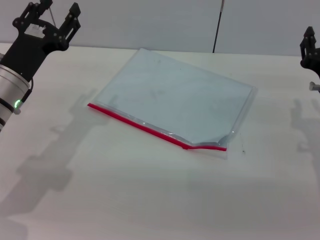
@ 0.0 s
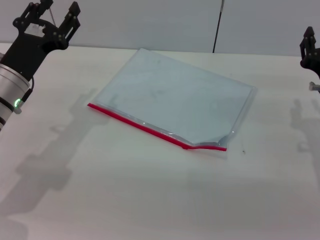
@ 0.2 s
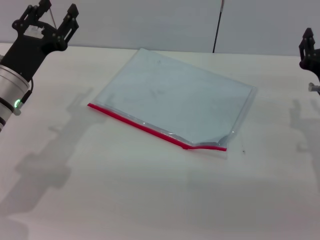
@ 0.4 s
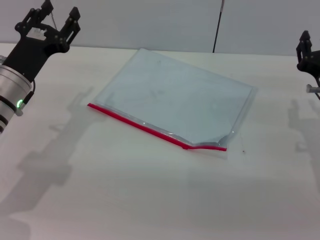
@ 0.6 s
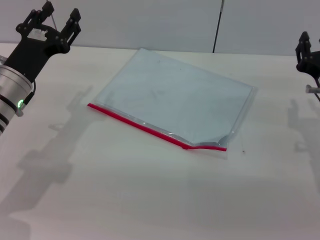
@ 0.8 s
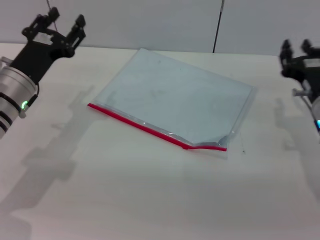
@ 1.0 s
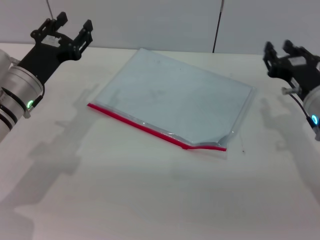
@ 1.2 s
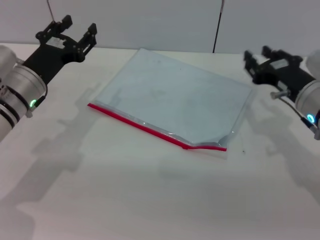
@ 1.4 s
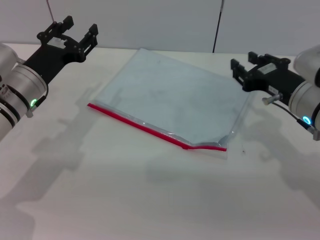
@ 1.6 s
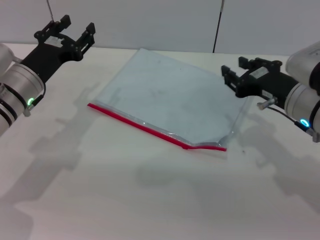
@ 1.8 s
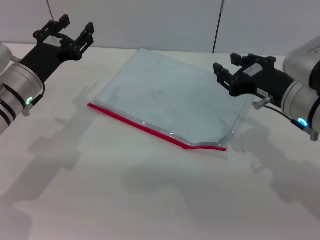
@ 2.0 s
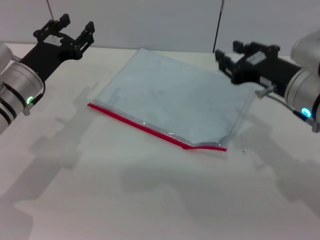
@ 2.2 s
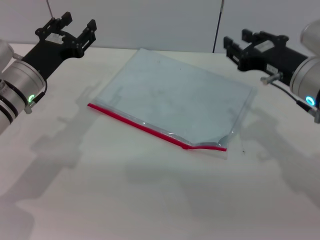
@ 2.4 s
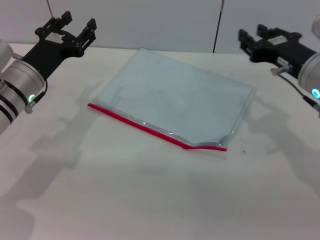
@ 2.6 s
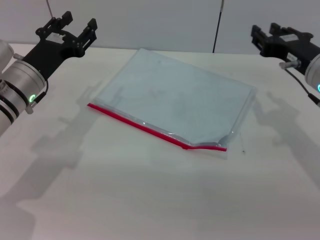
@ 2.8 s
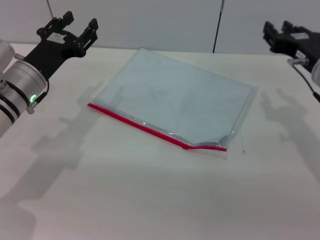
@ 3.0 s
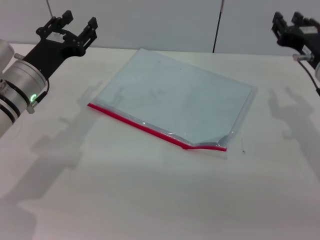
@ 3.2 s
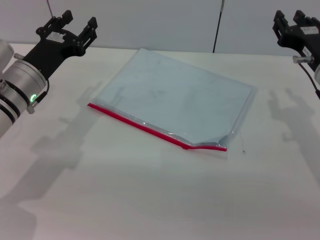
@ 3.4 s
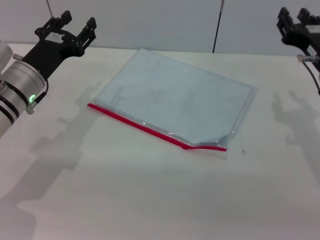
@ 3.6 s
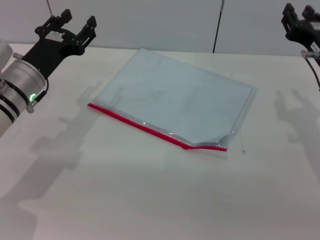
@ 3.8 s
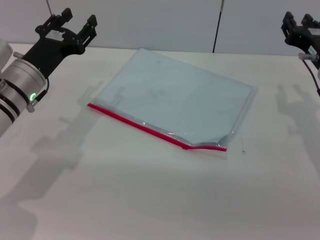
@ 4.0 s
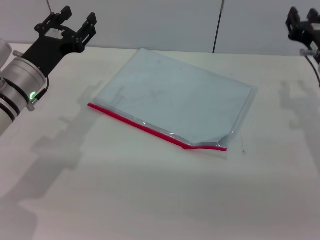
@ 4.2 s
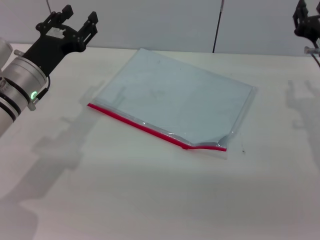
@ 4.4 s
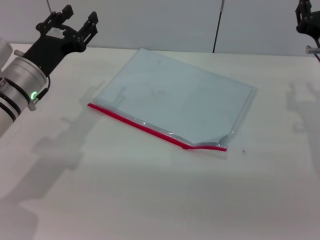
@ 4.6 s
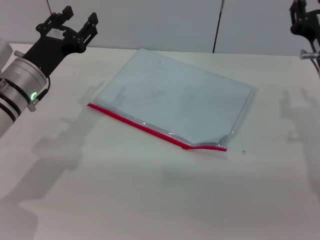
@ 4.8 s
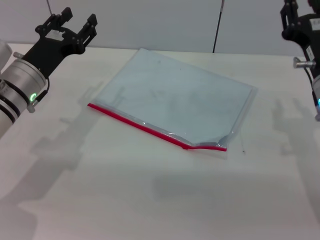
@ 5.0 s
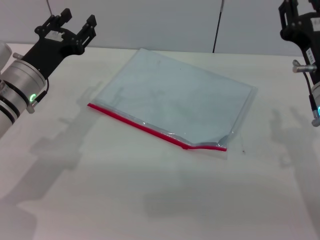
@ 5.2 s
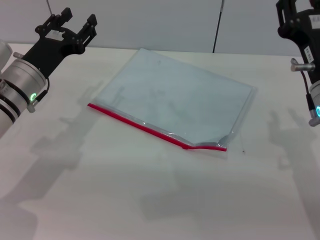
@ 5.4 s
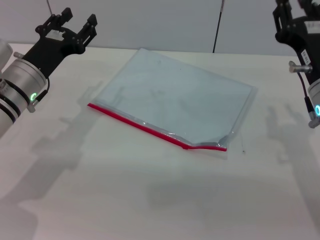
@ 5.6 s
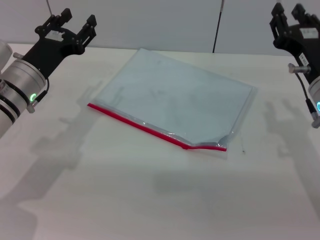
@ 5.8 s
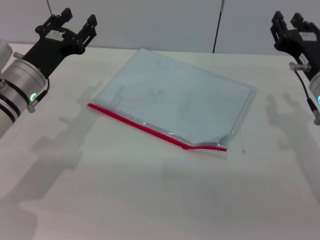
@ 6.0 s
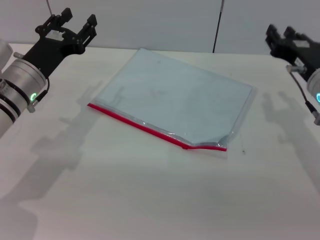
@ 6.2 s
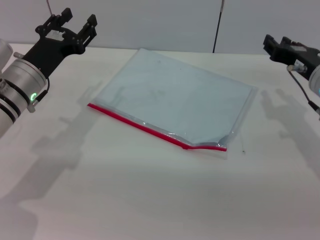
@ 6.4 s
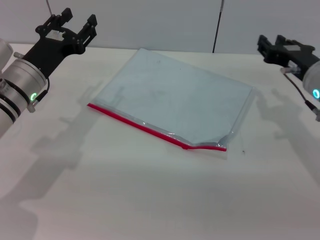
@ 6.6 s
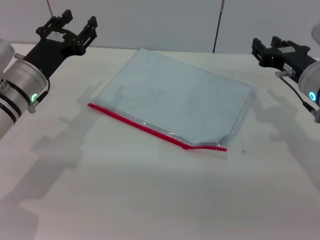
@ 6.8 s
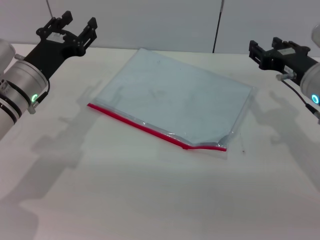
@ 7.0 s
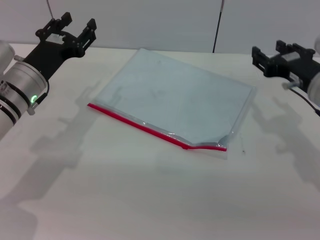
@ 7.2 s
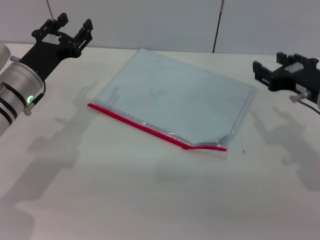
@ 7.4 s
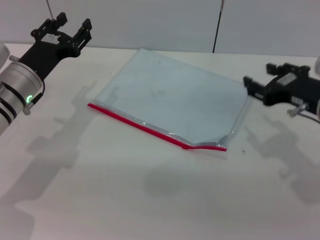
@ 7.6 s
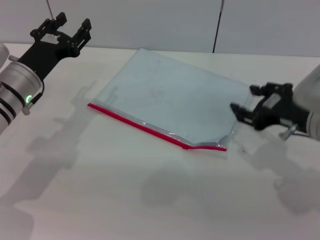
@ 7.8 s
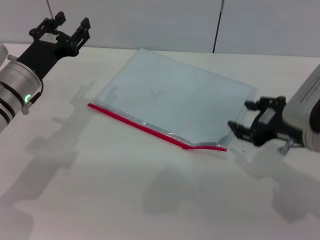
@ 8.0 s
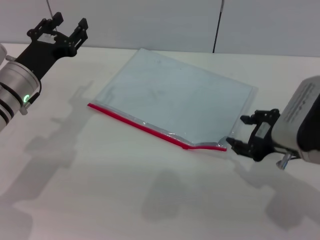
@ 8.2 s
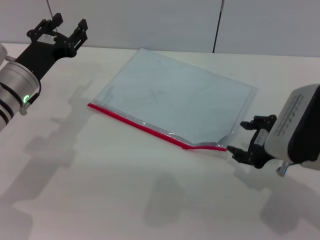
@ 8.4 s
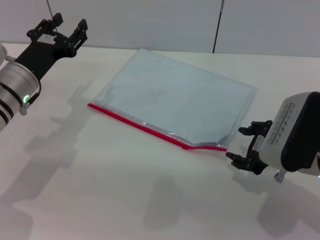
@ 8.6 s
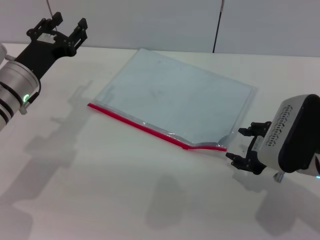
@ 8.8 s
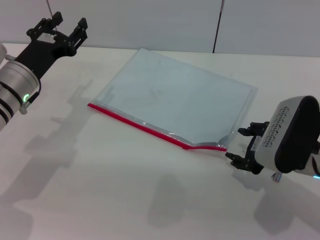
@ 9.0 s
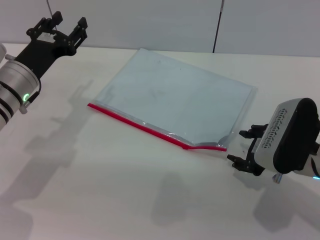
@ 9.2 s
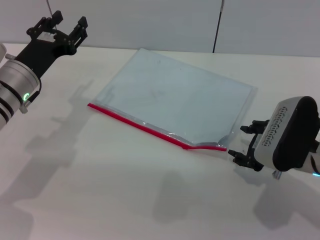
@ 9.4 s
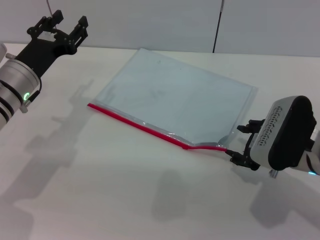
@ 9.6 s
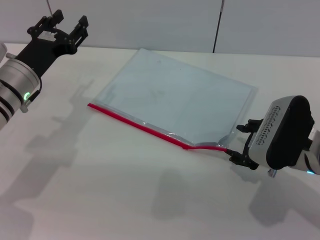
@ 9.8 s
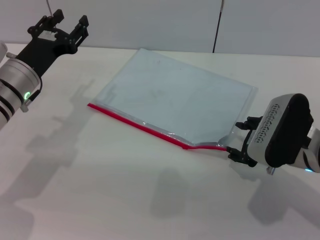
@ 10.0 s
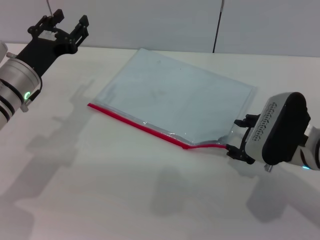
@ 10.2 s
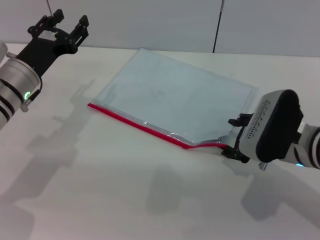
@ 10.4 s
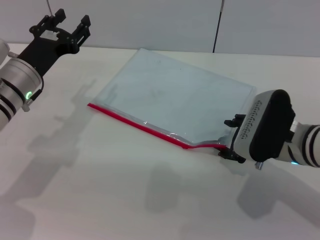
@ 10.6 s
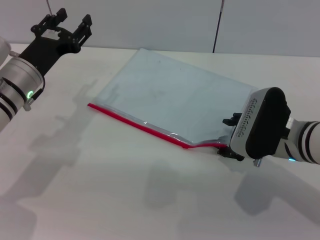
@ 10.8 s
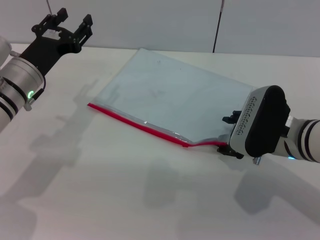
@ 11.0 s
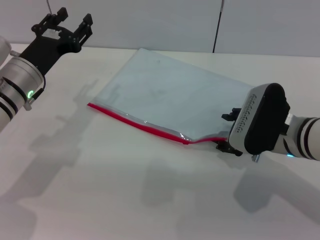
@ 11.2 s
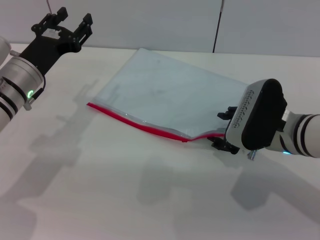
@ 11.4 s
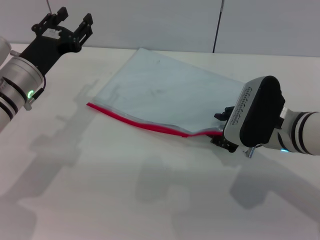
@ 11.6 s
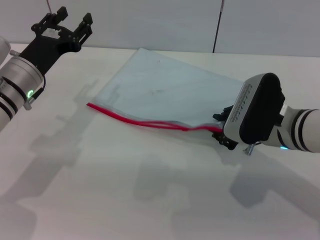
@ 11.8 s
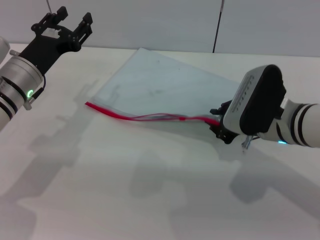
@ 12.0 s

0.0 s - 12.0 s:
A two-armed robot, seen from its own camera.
0.0 s - 1.6 s: The right gripper ends up roughly 5 cm from where it was.
1.6 s - 3.0 s: The grippers move only a little.
3.0 s - 4.4 s: The grippers stay close to where they were, moving slightly.
7.6 s - 9.0 s: The right gripper ends up some 5 cm from where it was.
9.0 s - 10.4 s: The grippers stay close to where they were, moving slightly.
10.4 s - 12.0 s: The right gripper closes up.

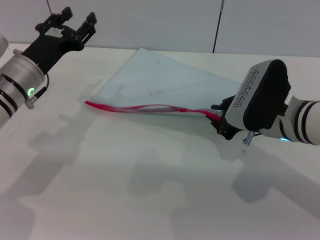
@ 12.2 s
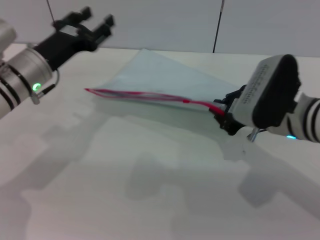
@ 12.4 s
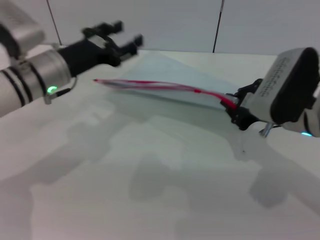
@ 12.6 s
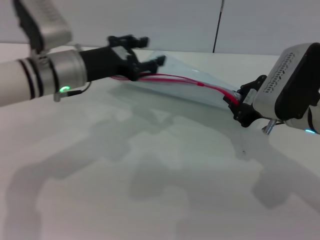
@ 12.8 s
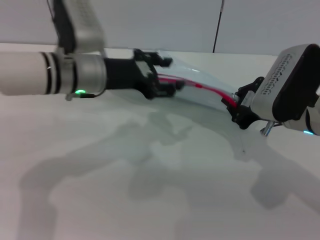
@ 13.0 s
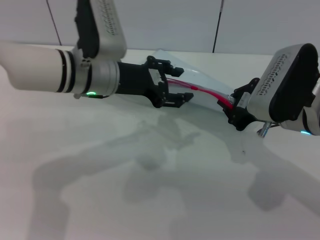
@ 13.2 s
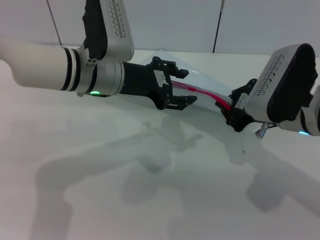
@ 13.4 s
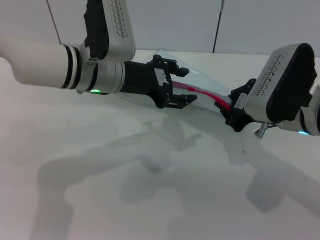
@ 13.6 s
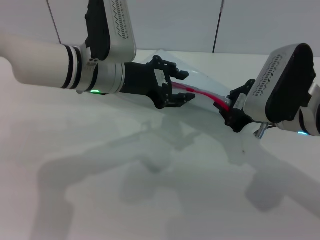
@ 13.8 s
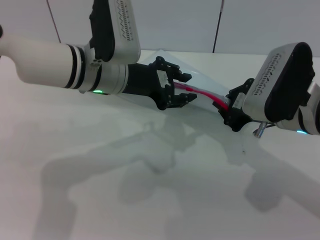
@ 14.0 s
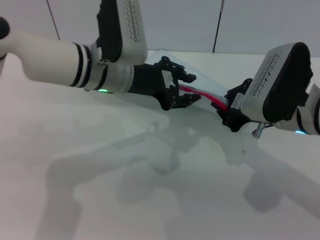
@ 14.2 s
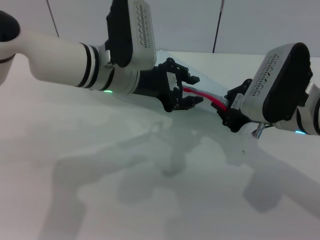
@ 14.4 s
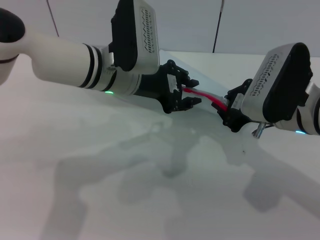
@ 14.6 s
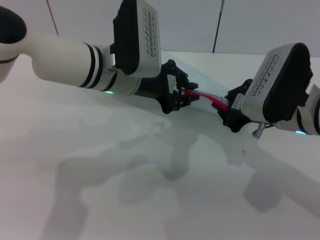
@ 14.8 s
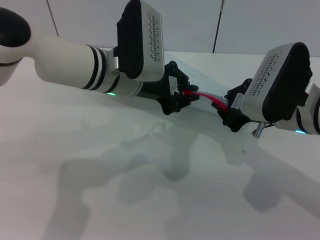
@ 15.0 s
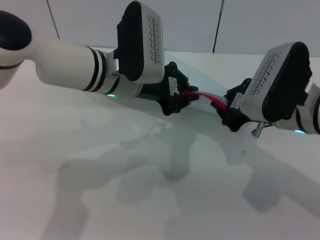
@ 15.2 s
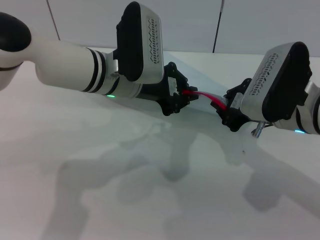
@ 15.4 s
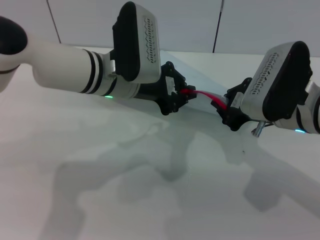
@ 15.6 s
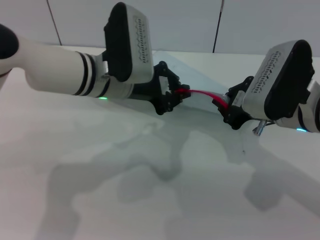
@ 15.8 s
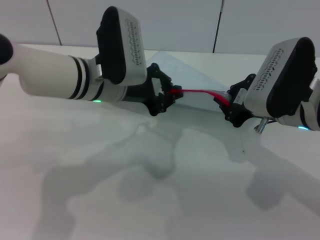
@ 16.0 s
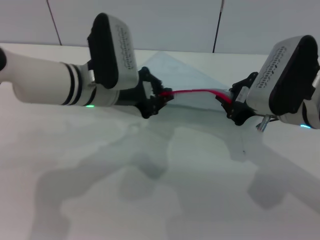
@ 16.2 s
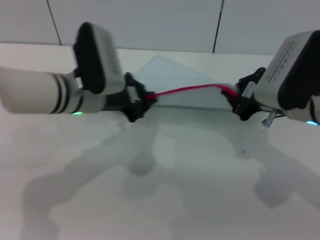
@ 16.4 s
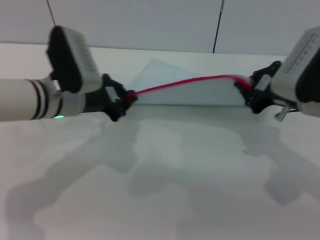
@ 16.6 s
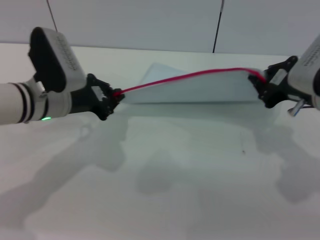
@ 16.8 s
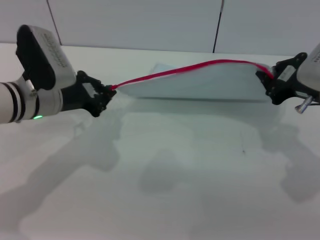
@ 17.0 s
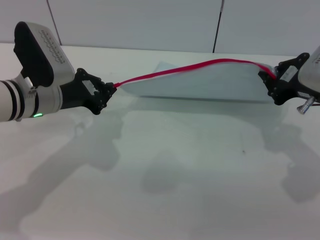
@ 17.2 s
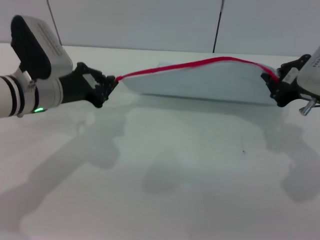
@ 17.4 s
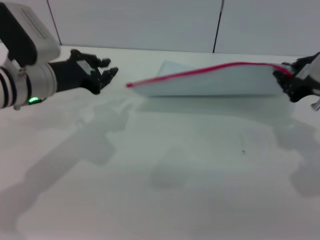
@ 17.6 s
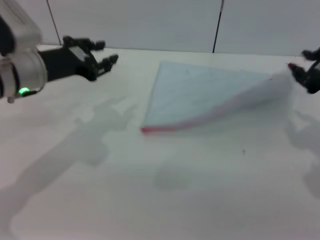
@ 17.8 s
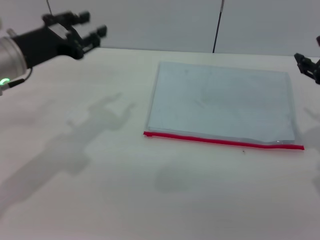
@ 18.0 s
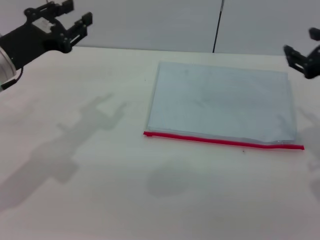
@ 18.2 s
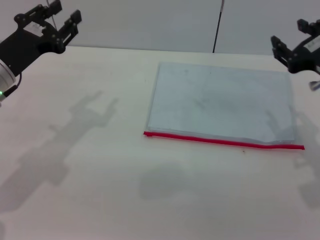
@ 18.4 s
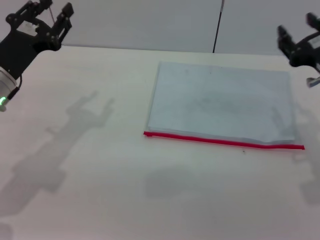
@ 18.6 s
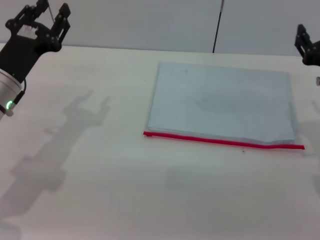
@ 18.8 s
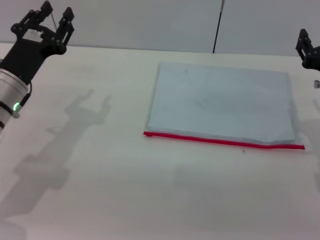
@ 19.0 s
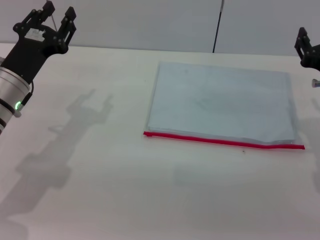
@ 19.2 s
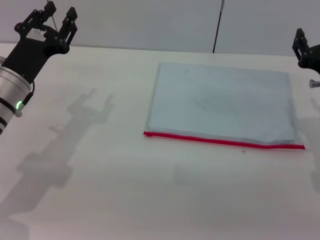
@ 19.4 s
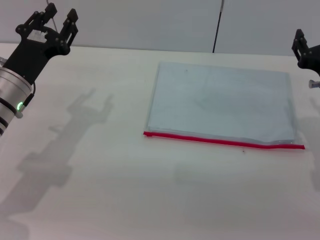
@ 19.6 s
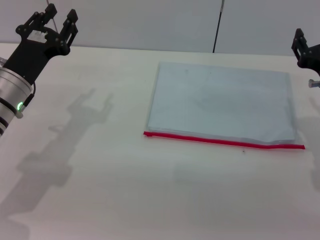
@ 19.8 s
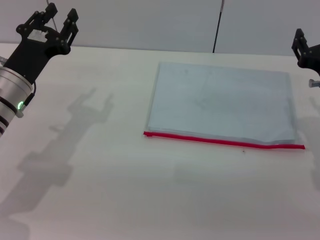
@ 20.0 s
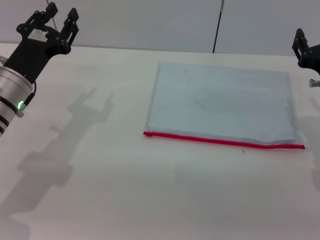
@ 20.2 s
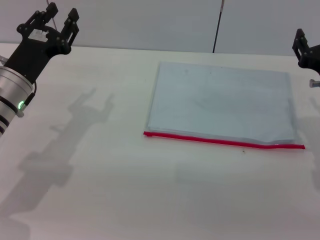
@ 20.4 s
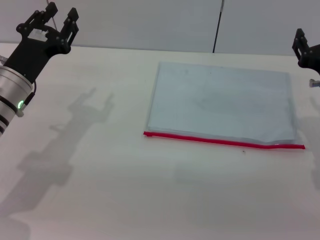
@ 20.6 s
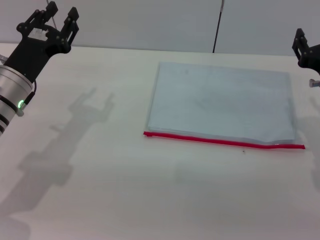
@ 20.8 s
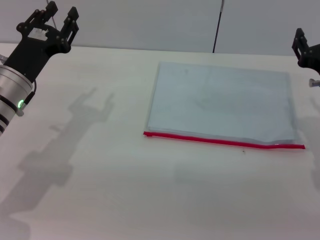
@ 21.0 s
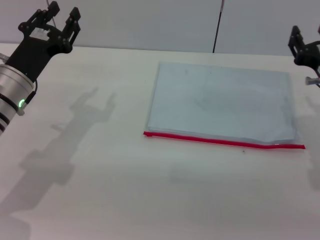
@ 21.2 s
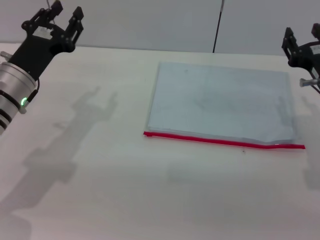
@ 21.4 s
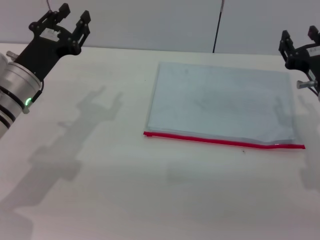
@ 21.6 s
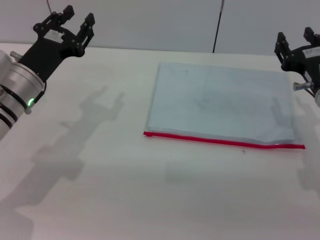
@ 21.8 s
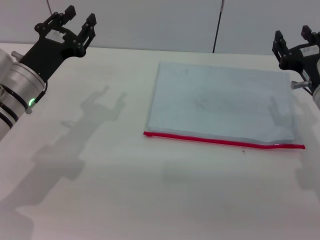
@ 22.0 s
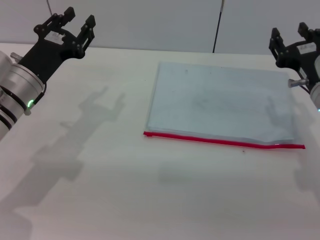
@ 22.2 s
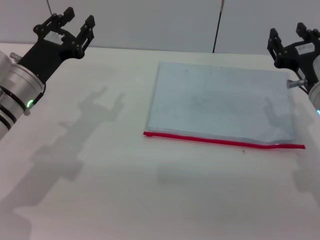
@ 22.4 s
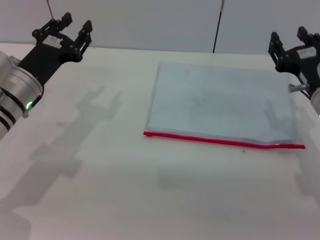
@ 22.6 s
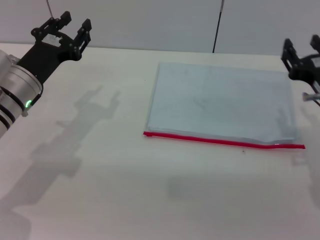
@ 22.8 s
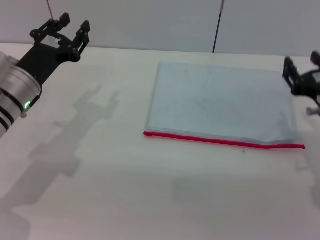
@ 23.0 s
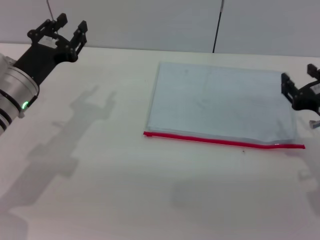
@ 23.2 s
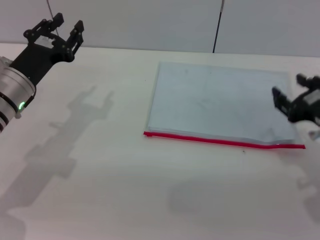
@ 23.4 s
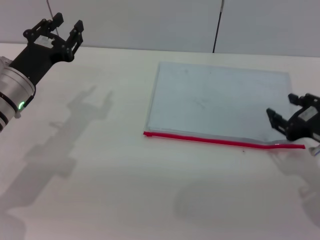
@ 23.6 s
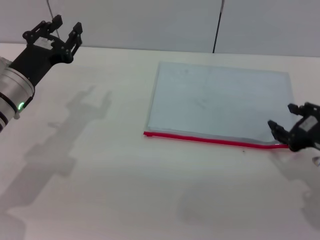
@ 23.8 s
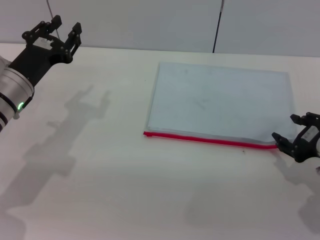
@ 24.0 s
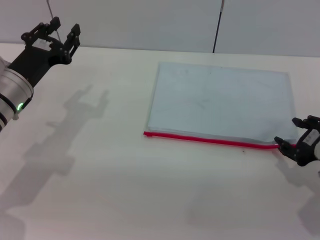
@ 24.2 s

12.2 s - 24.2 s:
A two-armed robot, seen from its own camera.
Step, 12.6 s - 17.4 s: Pulling up the zipper on the transparent plastic bag with the left gripper to close it.
Step, 17.6 s - 18.4 s: Place the transparent plastic bag.
12.2 s - 13.8 s: The left gripper moves to the right and upward, roughly 10 cm.
13.8 s - 15.2 s: The left gripper closes.
15.2 s - 16.6 s: The left gripper goes about 10 cm to the left.
16.6 s - 18.2 s: The left gripper goes approximately 10 cm to the left, and opens its fingers. The right gripper shifts some 5 cm to the right, and opens up.
18.2 s - 19.8 s: The grippers both shift downward by about 5 cm.
19.8 s - 21.2 s: Both grippers stay put.
21.2 s - 22.6 s: The grippers move only a little.
22.6 s - 24.2 s: The right gripper heads backward, covering approximately 5 cm.
